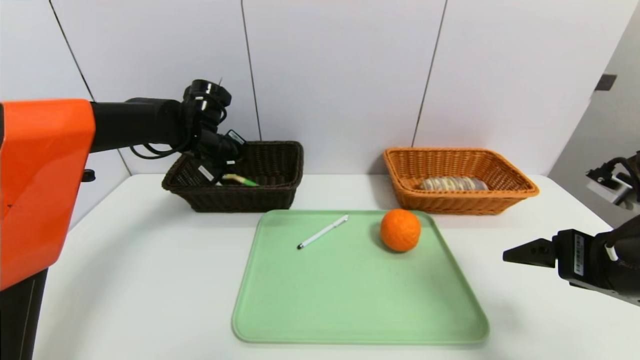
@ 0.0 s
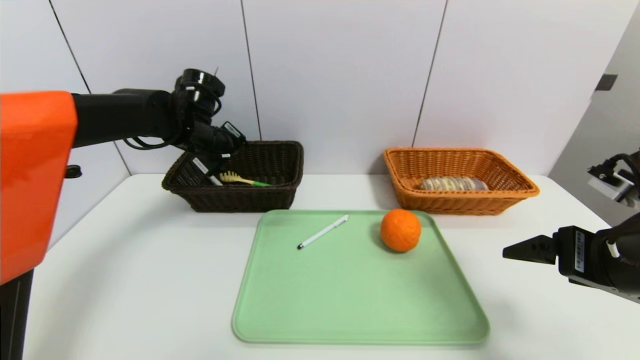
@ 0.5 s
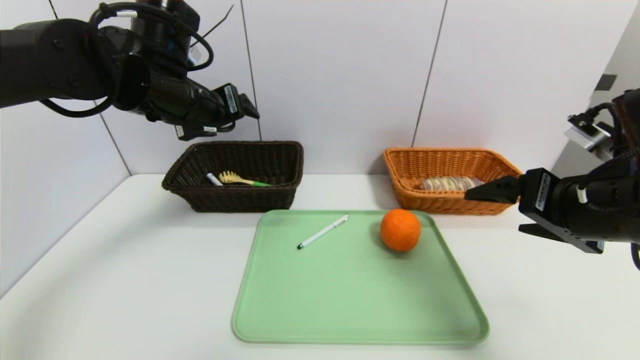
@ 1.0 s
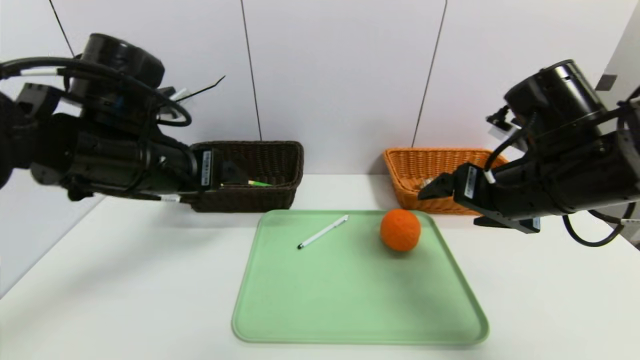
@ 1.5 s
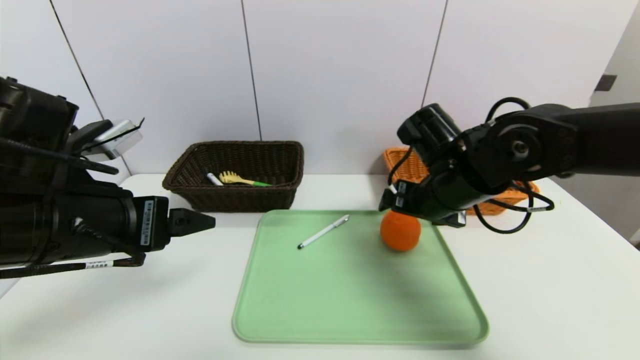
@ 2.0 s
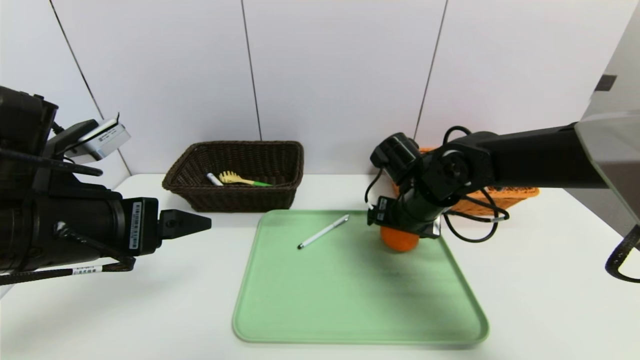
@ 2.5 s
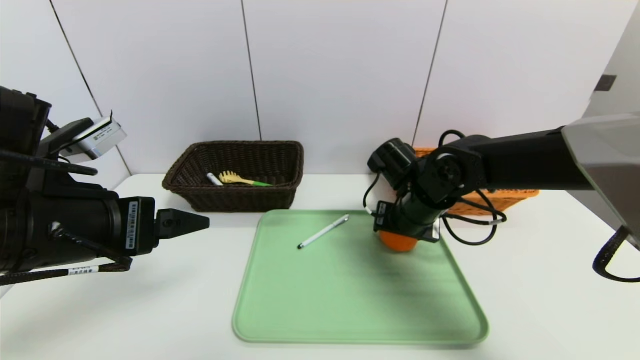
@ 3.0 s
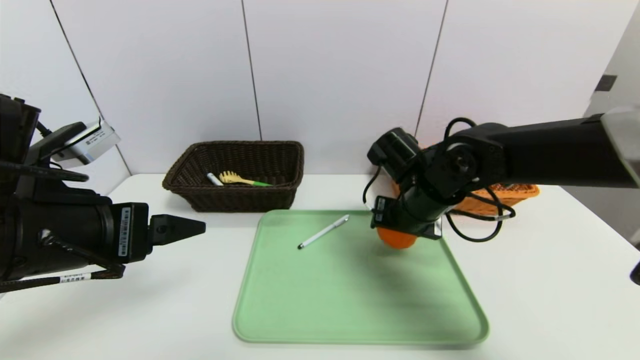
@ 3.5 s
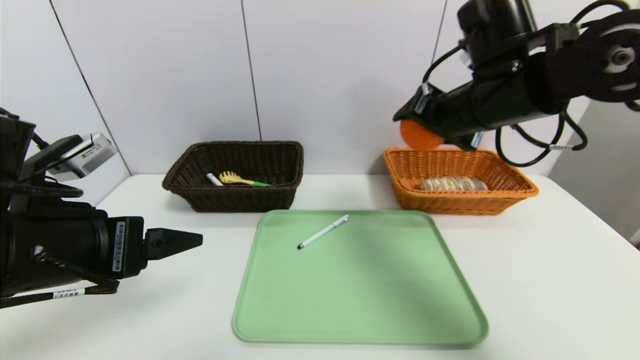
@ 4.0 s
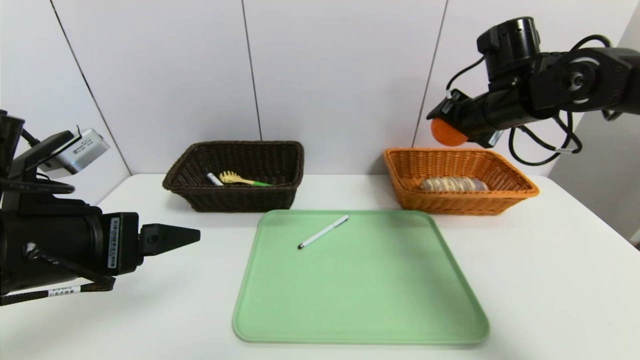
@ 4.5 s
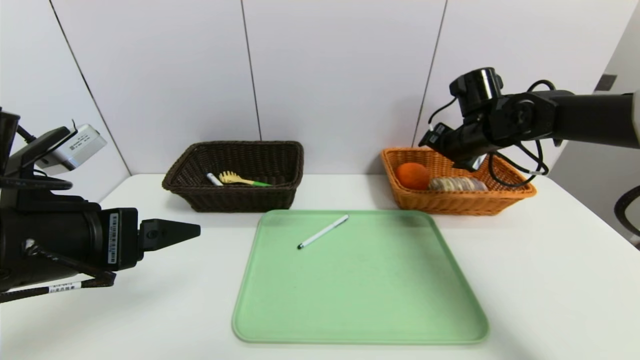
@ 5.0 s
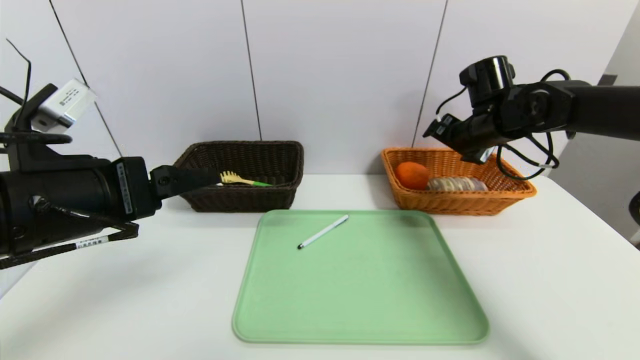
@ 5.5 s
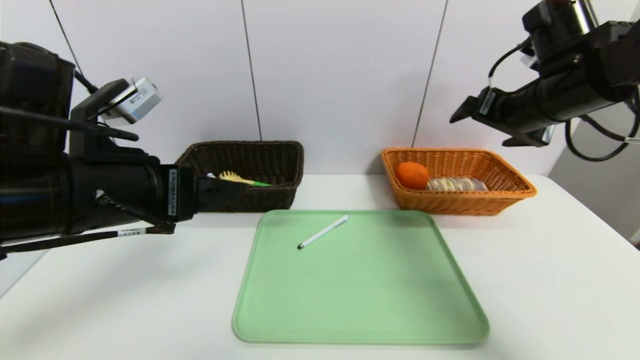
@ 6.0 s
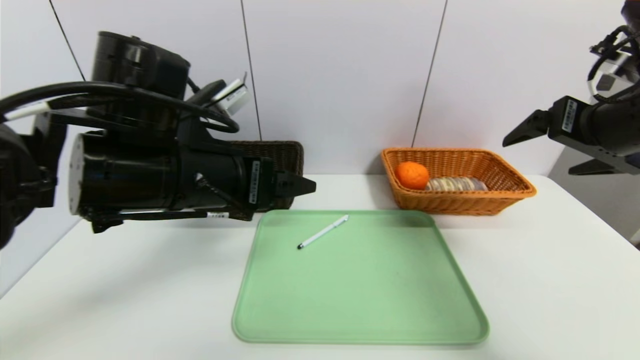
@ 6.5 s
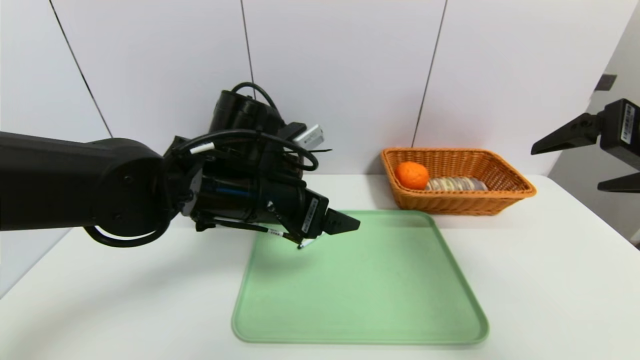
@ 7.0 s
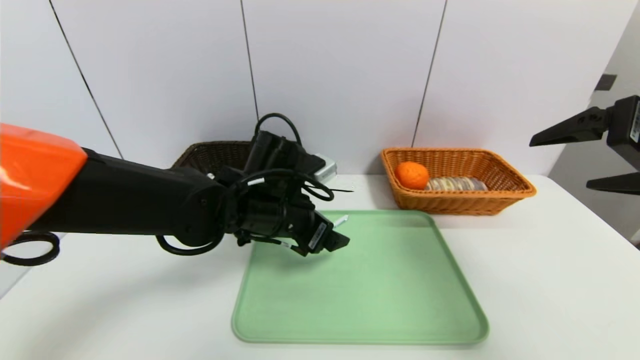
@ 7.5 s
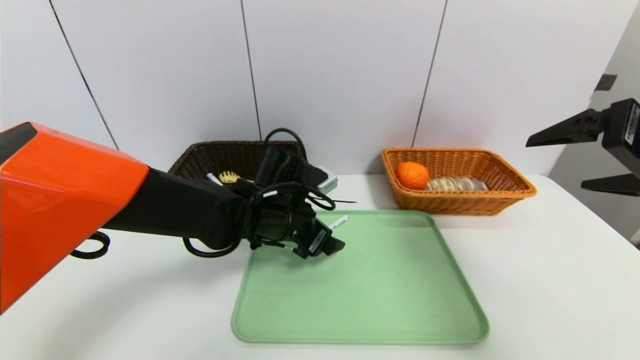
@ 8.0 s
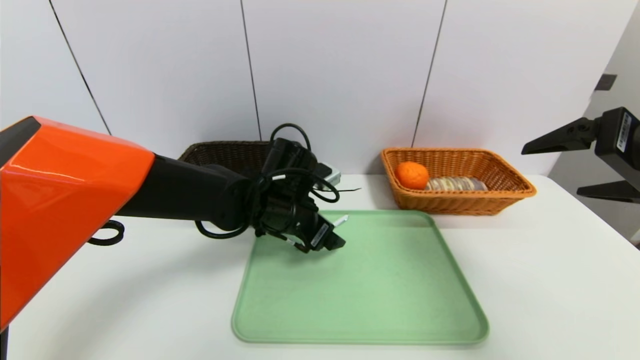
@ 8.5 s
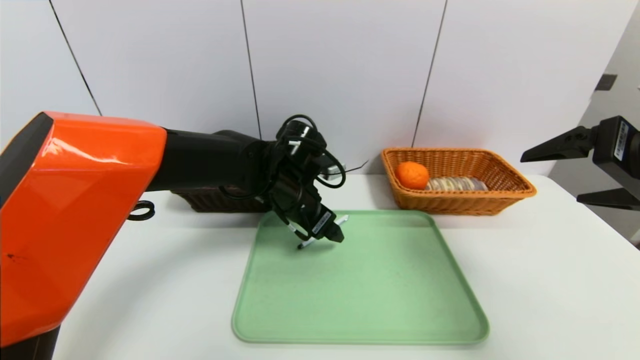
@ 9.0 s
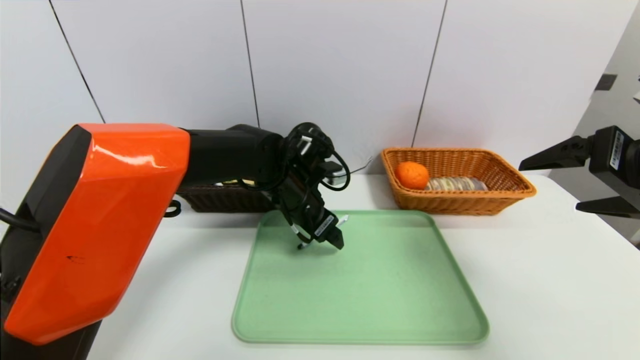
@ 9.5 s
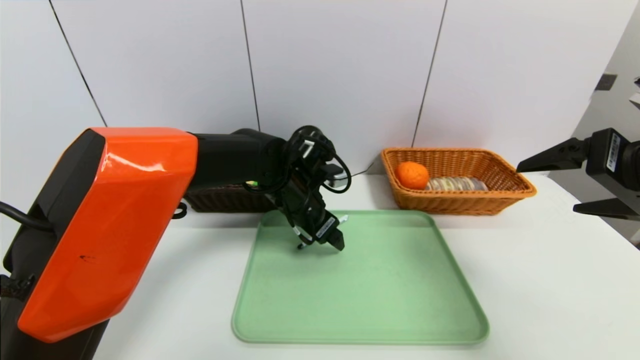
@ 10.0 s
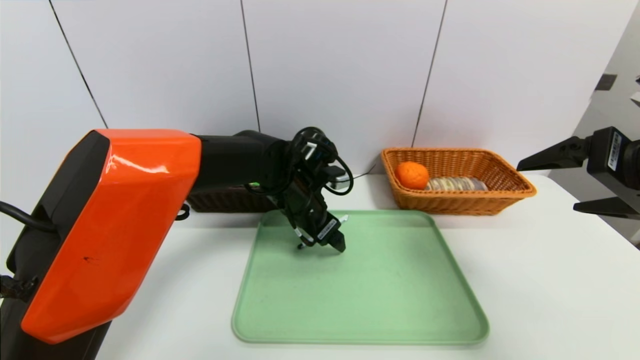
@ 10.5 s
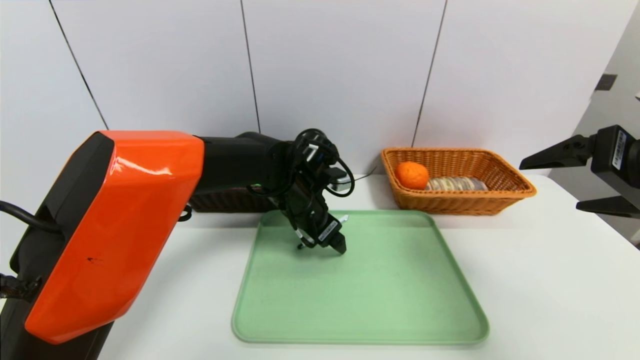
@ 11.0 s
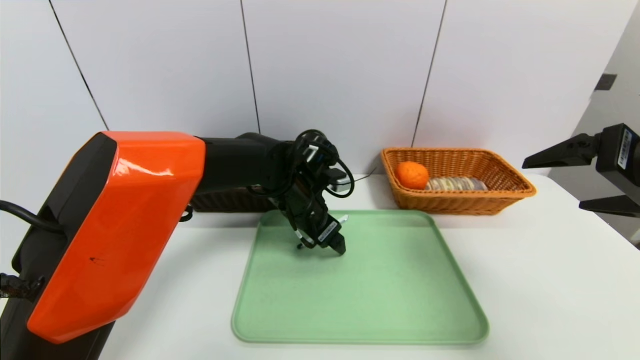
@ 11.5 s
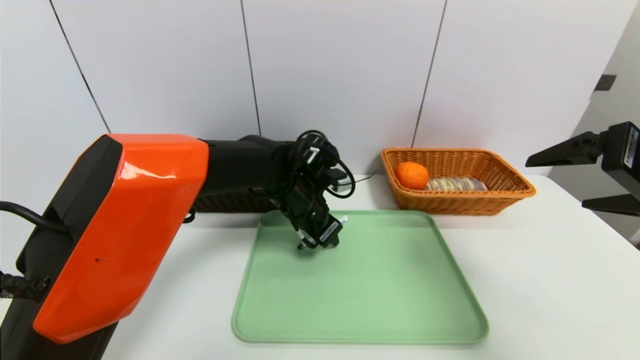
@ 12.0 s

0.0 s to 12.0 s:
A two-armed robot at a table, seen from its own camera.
Task of the whole recording: place the food in the right basket with the right gripper, and place the non food items in the left basket with the left gripper.
Step, 1.0 to 5.0 s: Grasp the orange and put it in the right basket.
0.0 to 2.0 s: The right gripper goes approximately 20 cm forward and to the left. The left gripper heads backward, covering approximately 25 cm, and opens.
2.0 to 4.0 s: The right gripper shifts roughly 10 cm upward.
4.0 to 6.0 s: The left gripper ends up some 5 cm from where it was, while the right gripper heads to the right, covering some 10 cm, and goes forward and returns, roughly 10 cm each way.
6.0 to 8.0 s: The right gripper is displaced backward by approximately 15 cm. Meanwhile the left gripper moves downward, forward and to the right, approximately 25 cm.
8.0 to 10.0 s: The left gripper shifts by some 5 cm.
10.0 to 12.0 s: The left gripper closes up.

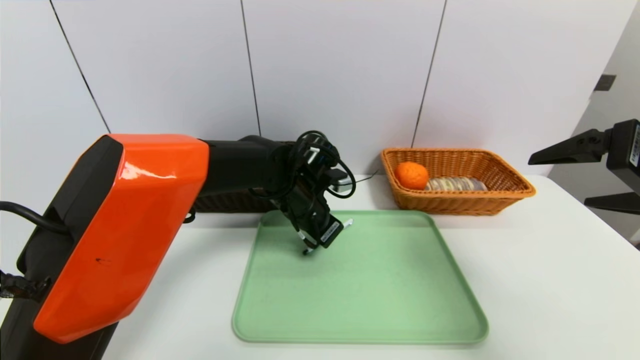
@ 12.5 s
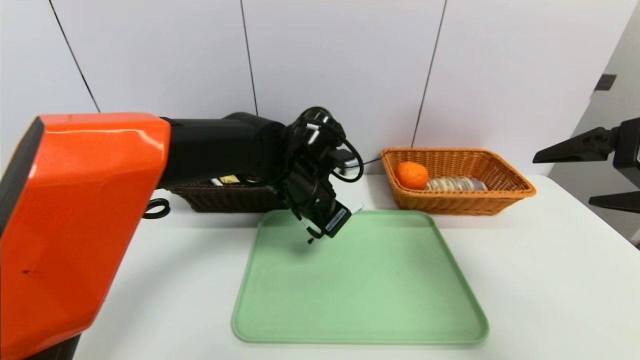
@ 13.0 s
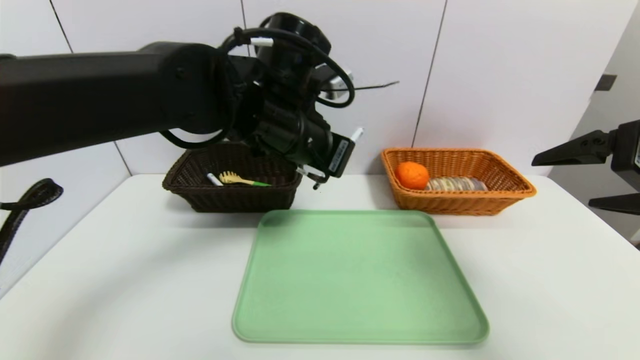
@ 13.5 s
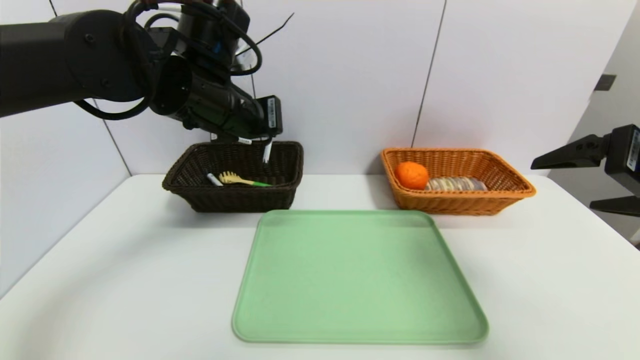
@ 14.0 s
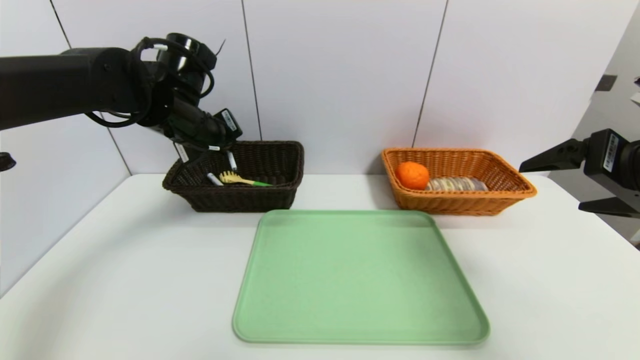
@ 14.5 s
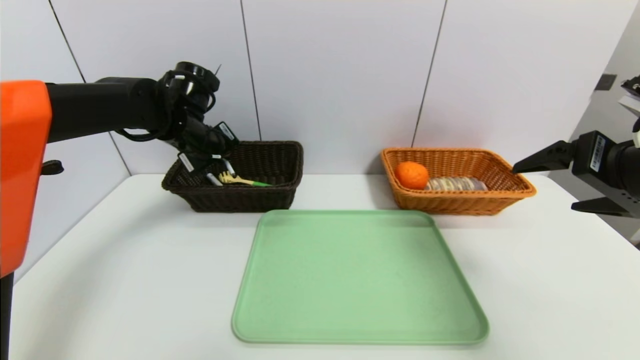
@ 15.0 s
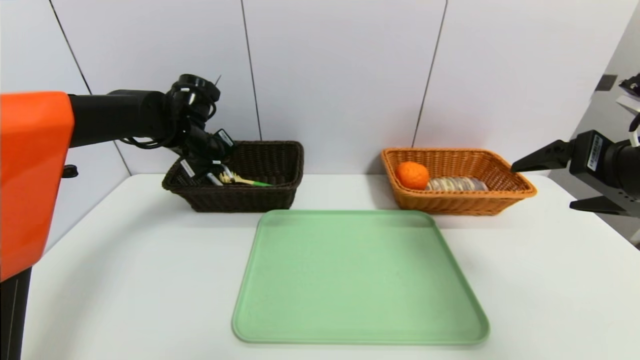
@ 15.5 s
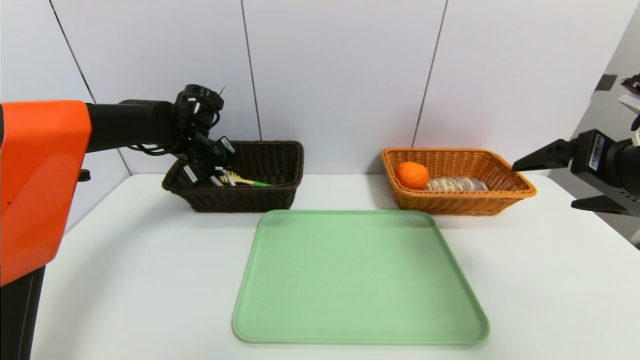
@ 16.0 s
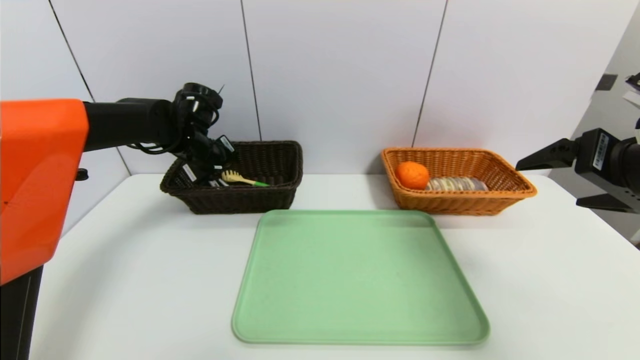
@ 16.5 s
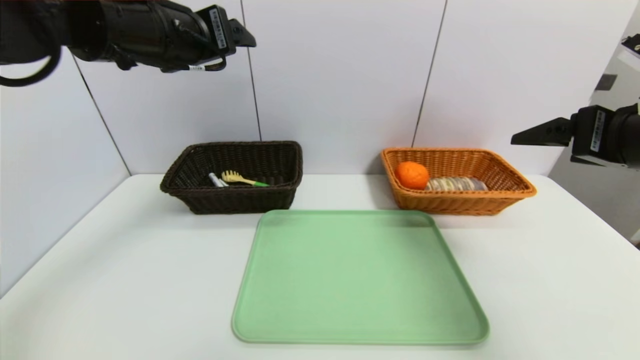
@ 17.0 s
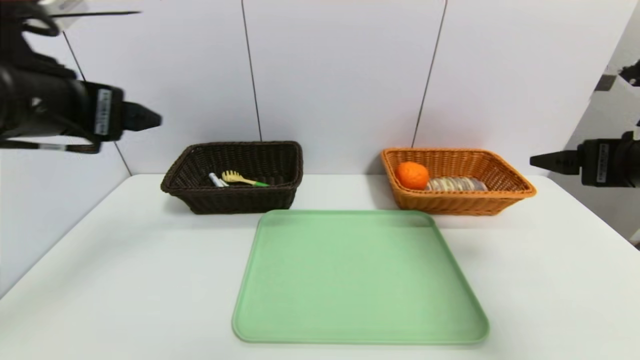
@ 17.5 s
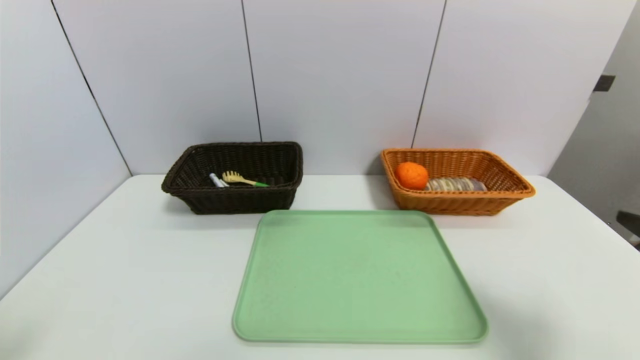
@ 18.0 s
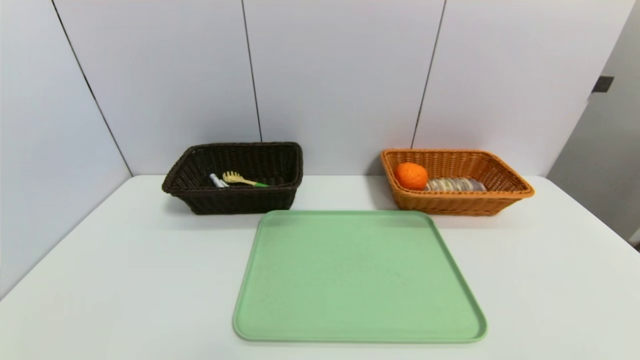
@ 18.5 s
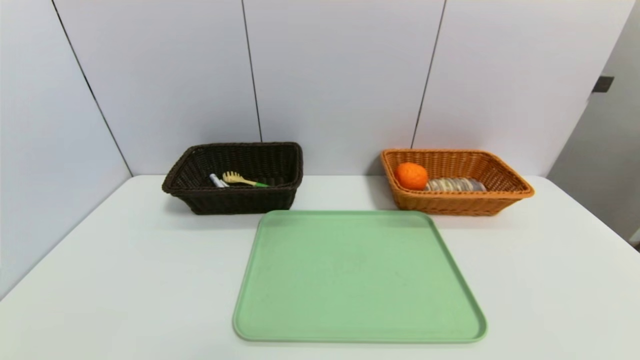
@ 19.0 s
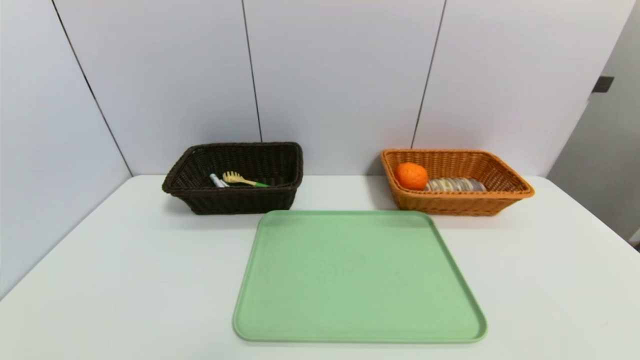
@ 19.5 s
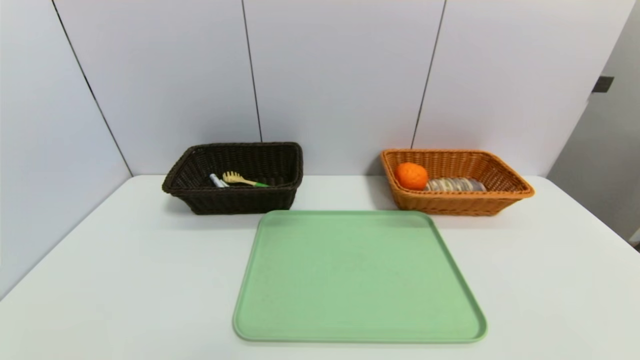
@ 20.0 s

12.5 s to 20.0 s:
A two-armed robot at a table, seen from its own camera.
Task of the whole recording: place the food in the right basket with the right gripper, and place the non food items in the left basket with the left gripper.
Step, 12.5 to 16.5 s: Grasp the ballpoint pen and put it in the left basket.
12.5 to 14.5 s: The left gripper travels to the left and upward by some 20 cm.
14.5 to 16.5 s: The left gripper travels forward and downward by approximately 10 cm, and opens up.
16.5 to 18.0 s: The left gripper heads backward, covering roughly 40 cm; the right gripper goes some 15 cm backward and downward.
18.0 to 20.0 s: The right gripper moves downward and backward, roughly 20 cm.
